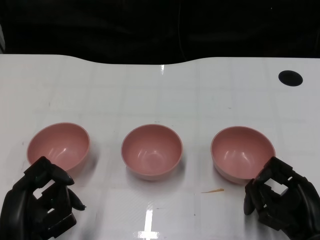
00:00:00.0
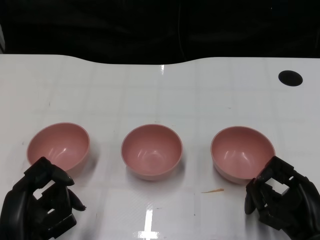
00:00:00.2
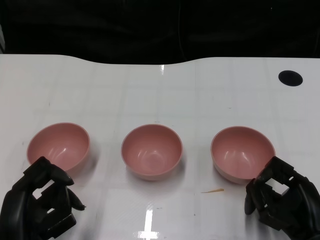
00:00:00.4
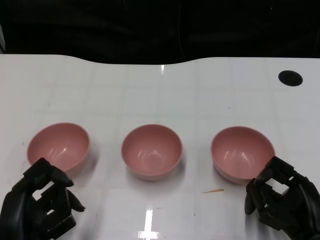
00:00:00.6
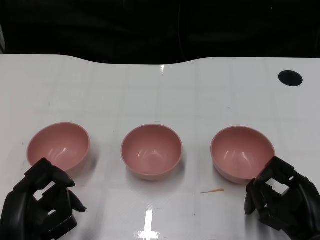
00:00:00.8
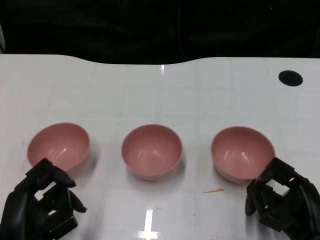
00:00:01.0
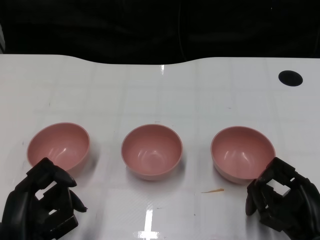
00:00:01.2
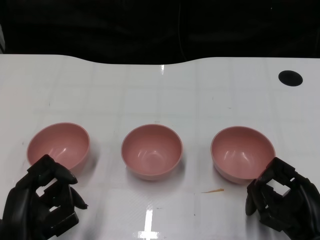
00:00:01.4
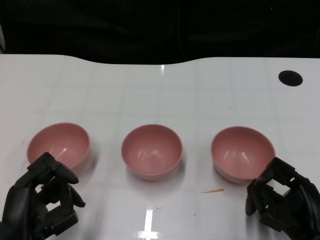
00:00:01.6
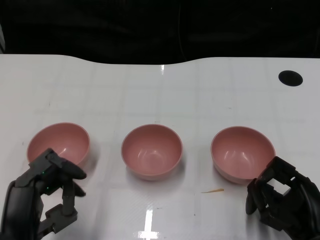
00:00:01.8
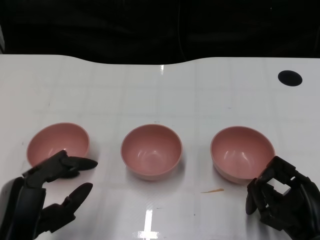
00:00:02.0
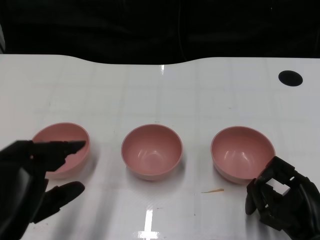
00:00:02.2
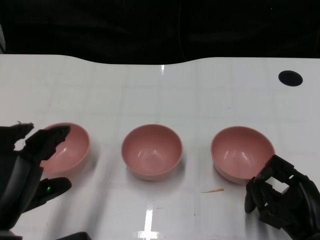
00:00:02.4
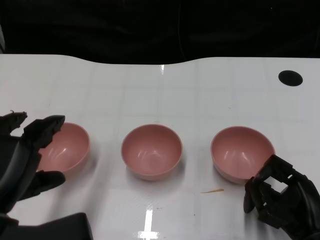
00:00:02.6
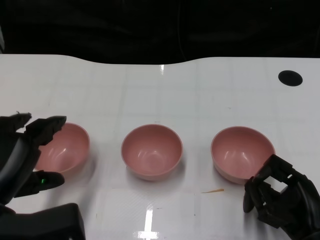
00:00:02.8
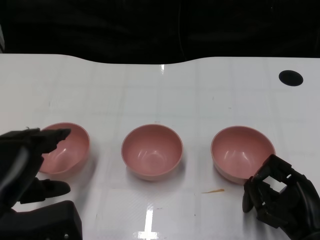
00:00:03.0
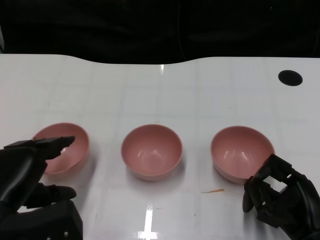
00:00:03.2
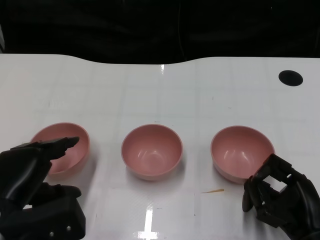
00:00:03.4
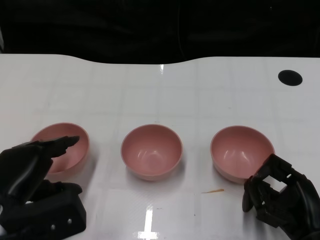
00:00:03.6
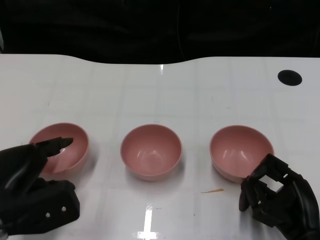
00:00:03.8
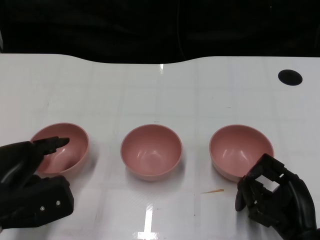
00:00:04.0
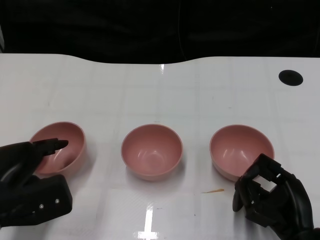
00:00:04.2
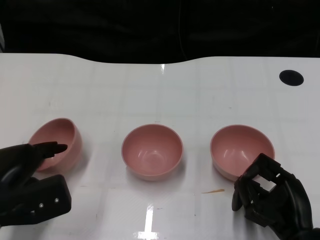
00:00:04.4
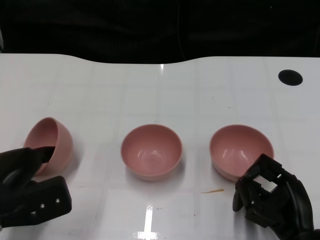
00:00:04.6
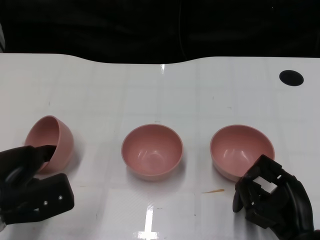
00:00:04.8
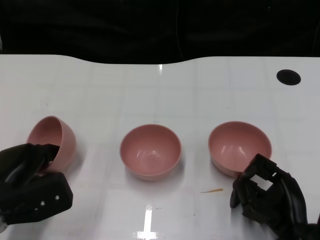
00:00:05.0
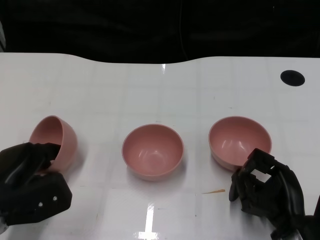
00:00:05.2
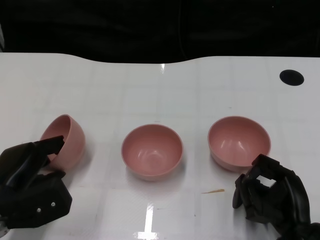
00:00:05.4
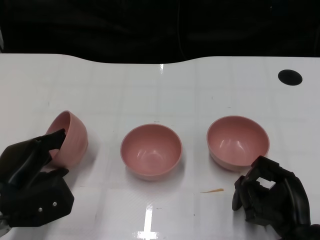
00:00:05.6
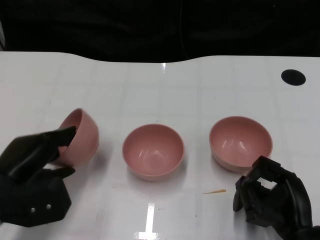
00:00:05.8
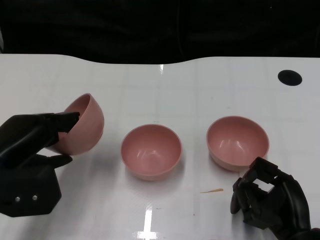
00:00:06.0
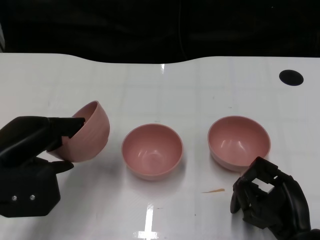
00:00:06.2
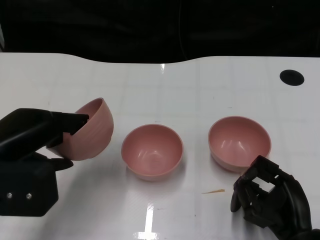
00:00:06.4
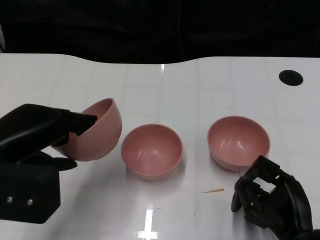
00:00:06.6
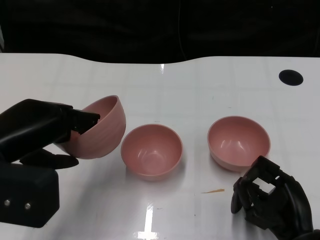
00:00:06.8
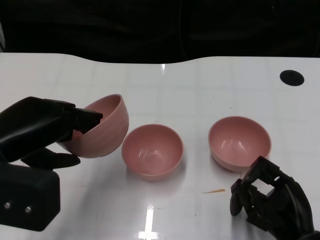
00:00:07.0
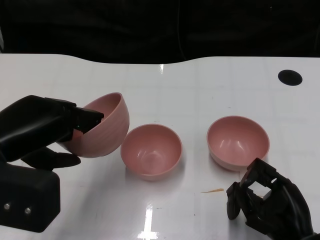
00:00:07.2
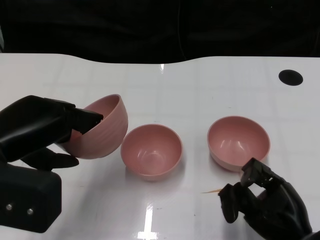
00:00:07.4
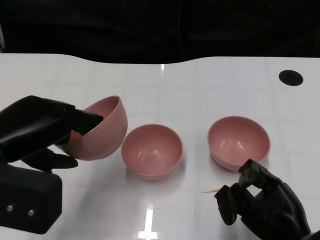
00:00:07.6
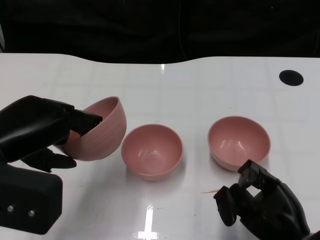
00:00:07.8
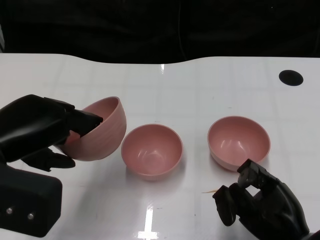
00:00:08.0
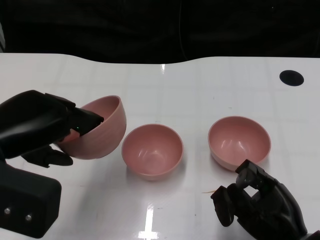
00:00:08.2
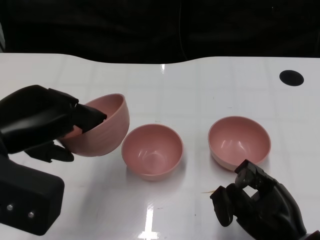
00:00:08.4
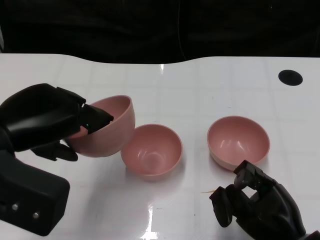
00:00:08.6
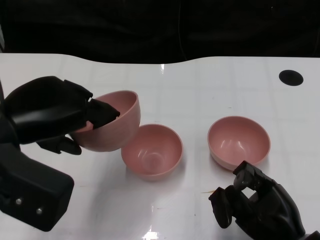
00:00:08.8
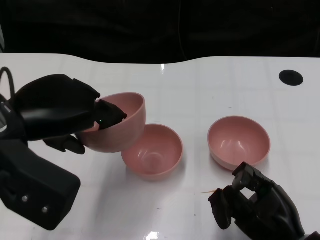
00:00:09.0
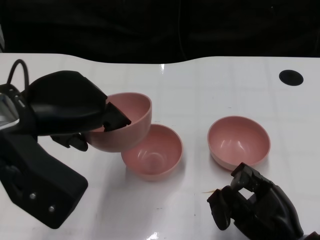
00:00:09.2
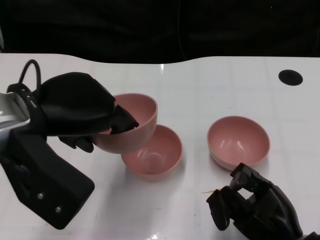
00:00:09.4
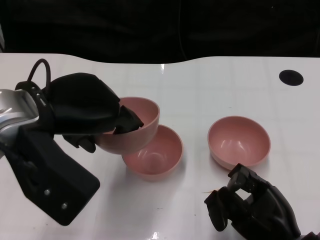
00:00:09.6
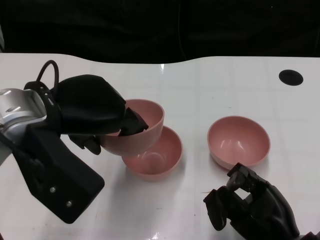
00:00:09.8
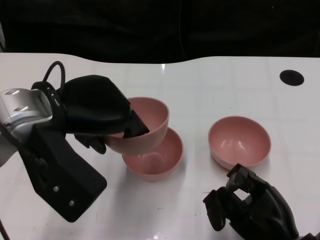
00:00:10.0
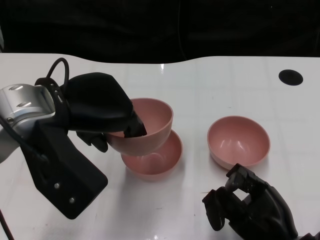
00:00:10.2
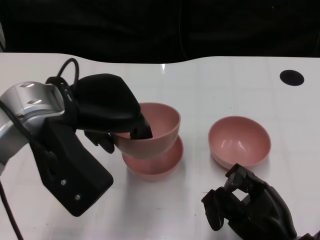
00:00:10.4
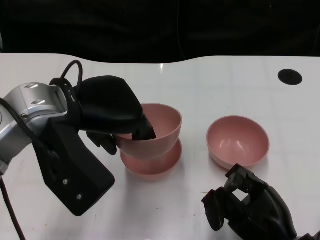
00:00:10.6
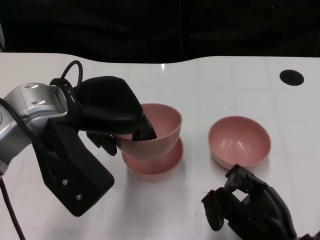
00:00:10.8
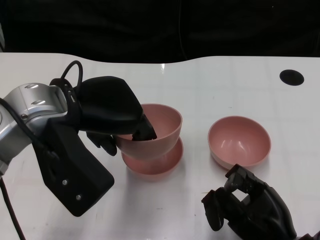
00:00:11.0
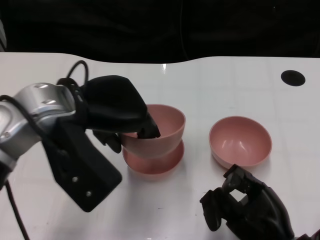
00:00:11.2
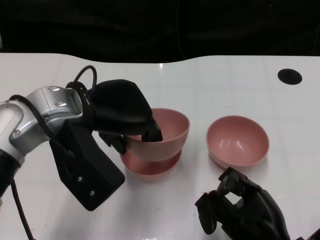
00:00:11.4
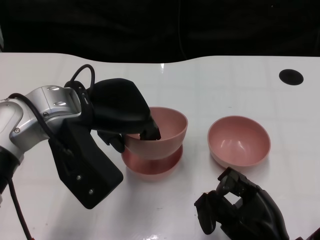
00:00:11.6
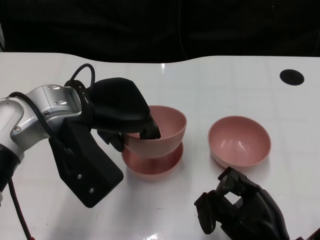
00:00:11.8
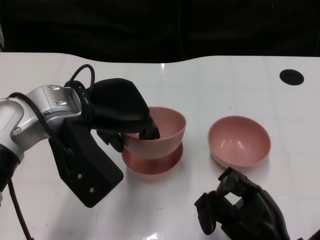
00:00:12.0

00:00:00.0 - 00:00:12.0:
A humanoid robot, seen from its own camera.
Task of the whole recording: Pick up the bowl on one side of the table and place it on top of the middle bowl, then pick up the bowl on the other side of the table and place it on top of the middle bowls.
Step, 00:00:01.6 - 00:00:05.4: Grasp the bowl on the left with the left gripper.
00:00:01.6 - 00:00:03.0: The left hand shifts by about 5 cm.
00:00:03.0 - 00:00:04.4: The left hand ends up some 5 cm from where it was.
00:00:04.4 - 00:00:06.0: The left hand heads upward, covering approximately 5 cm.
00:00:06.0 - 00:00:07.6: The left hand goes approximately 5 cm upward.
00:00:07.6 - 00:00:09.0: The hands move only a little.
00:00:09.0 - 00:00:10.4: The left hand travels to the right by some 5 cm.
00:00:10.4 - 00:00:12.0: The hands stay close to where they were, moving slightly.

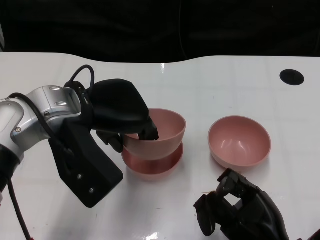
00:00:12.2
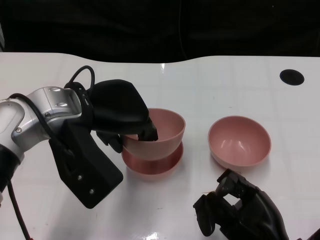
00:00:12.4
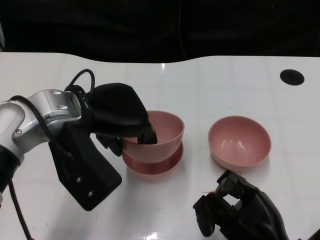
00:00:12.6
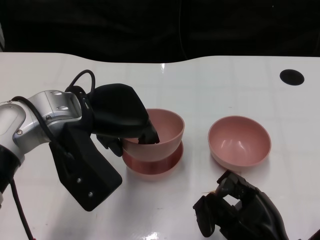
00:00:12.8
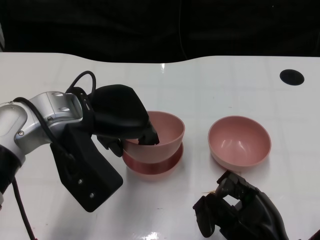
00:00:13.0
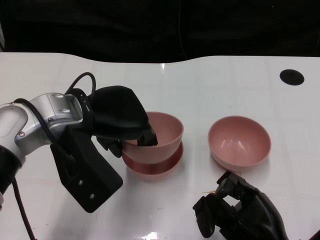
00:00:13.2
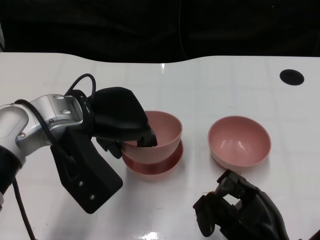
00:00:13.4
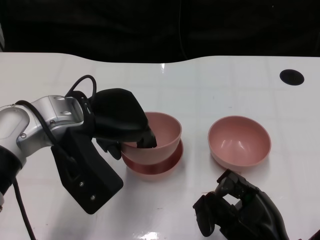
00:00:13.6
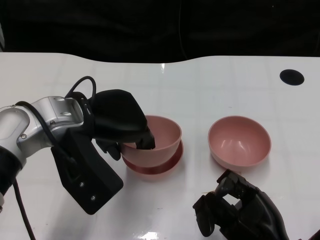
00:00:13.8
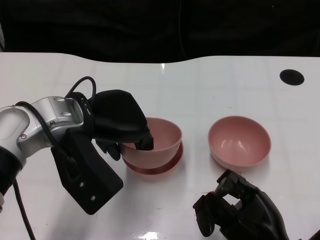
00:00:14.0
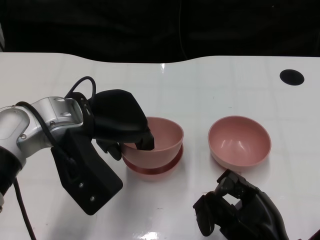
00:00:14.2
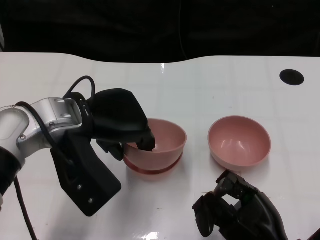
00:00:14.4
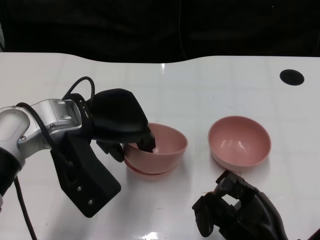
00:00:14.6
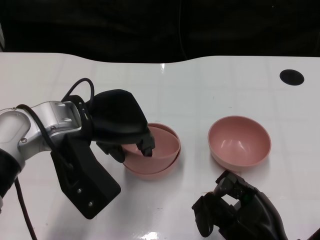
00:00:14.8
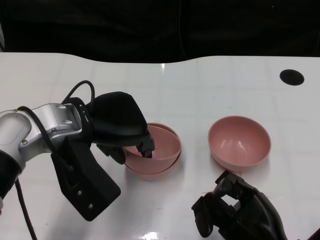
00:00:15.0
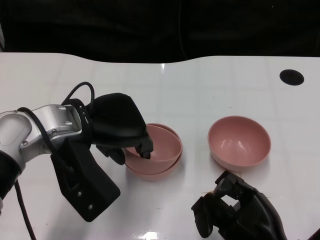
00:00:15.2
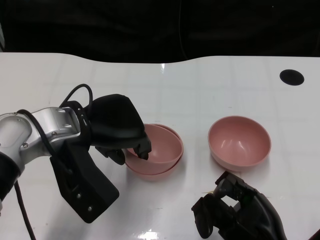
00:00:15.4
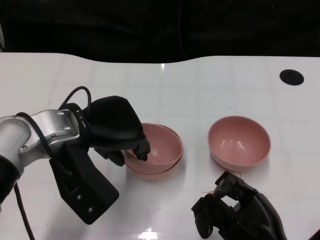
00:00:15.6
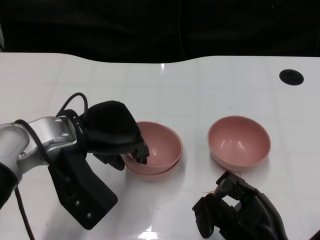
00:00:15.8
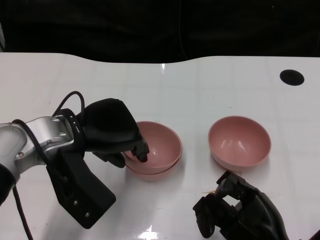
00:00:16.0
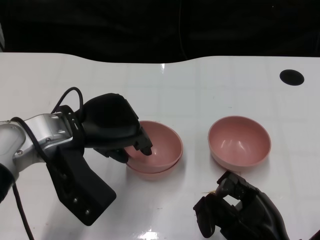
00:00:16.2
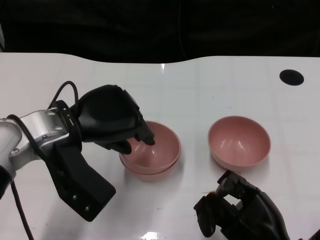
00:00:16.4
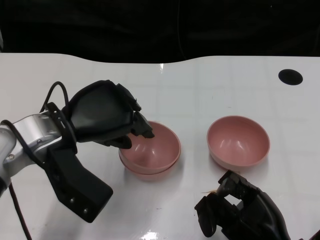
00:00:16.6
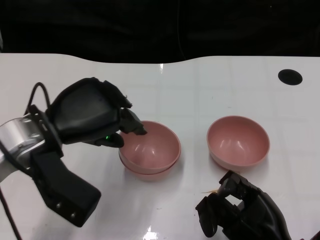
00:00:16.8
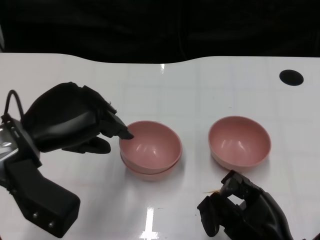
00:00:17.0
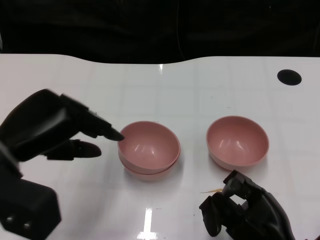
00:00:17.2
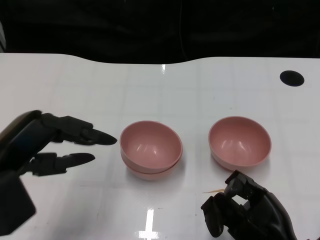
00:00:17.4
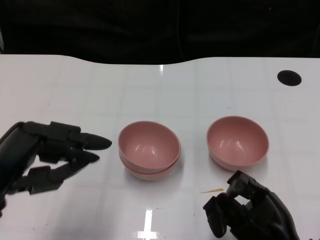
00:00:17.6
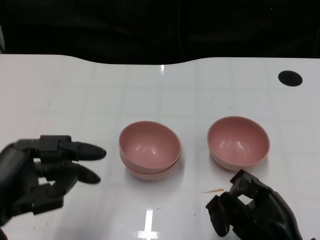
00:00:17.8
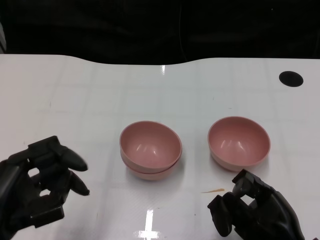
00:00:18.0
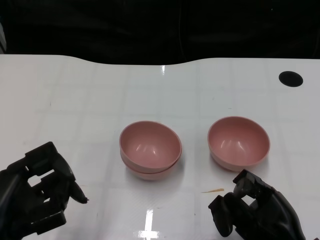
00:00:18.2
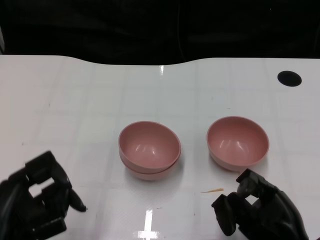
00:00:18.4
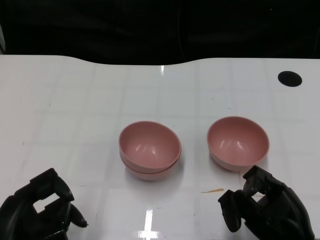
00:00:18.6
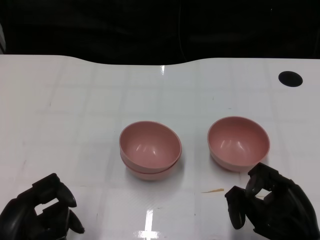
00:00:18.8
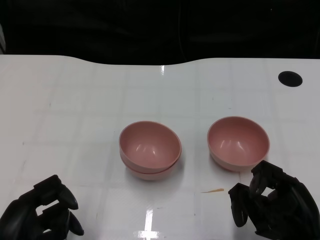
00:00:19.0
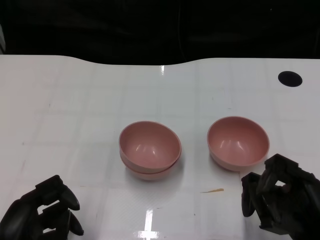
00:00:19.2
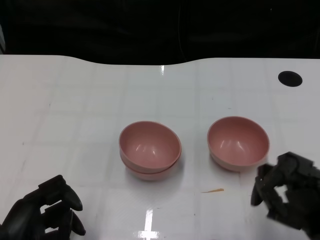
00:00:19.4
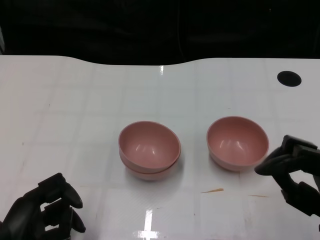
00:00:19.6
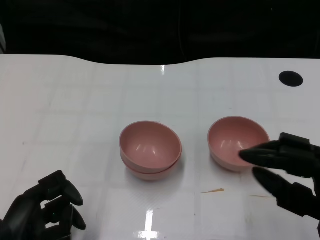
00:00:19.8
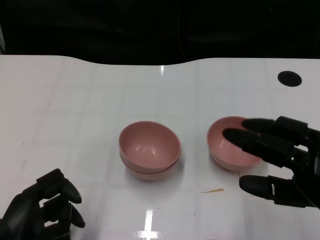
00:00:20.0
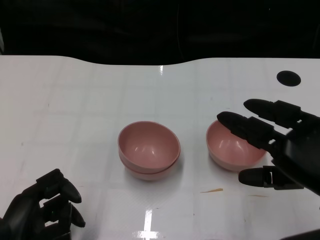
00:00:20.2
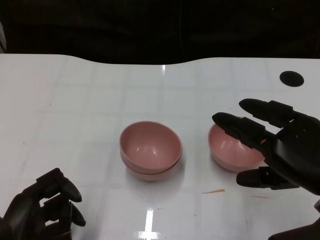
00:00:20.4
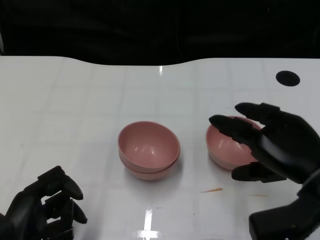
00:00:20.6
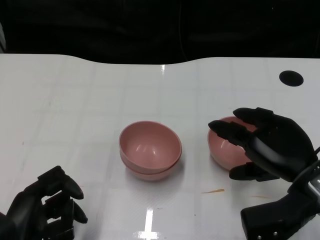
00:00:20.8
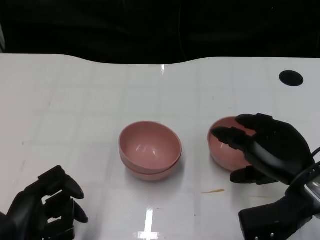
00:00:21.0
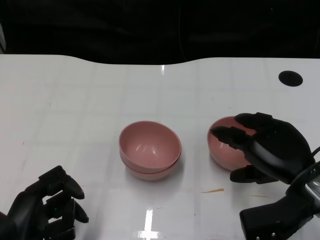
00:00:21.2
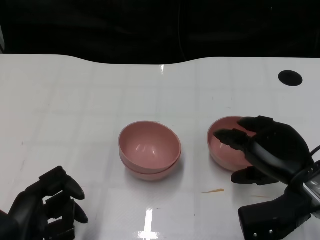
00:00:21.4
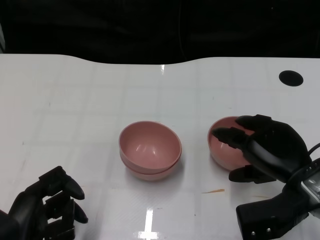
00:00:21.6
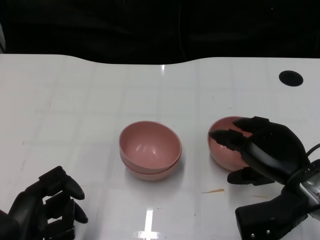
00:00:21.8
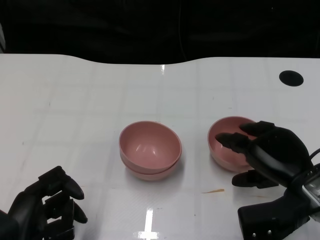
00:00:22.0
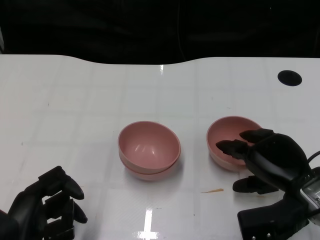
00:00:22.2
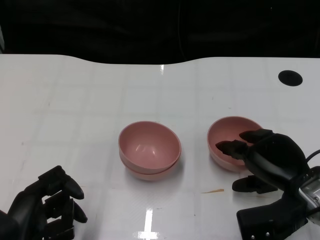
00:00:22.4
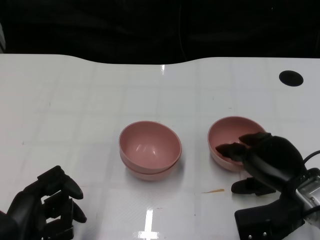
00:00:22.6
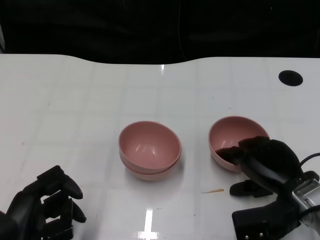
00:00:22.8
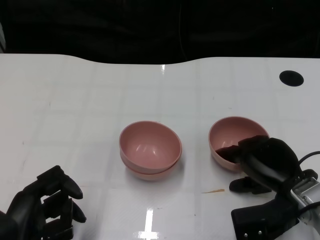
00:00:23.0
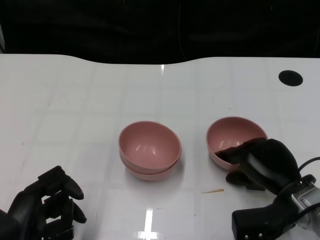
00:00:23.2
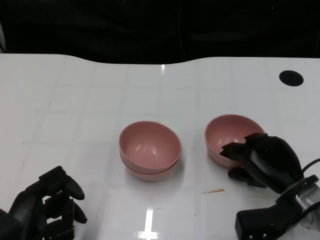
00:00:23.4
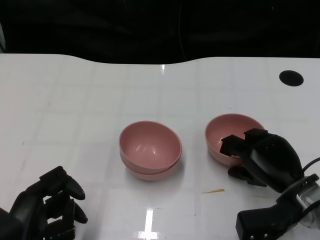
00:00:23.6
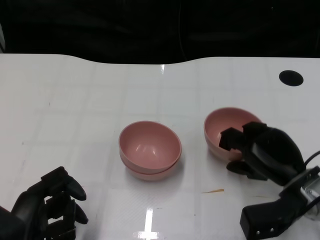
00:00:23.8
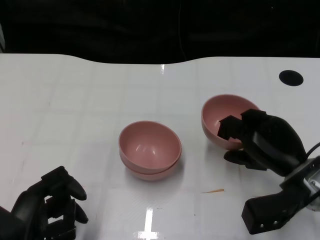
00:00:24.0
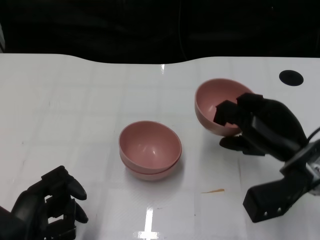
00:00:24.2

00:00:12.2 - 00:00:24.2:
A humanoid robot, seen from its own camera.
Task of the whole recording: Pick up the bowl on one side of the table and place it on top of the middle bowl, then pick up the bowl on the other side of the table and place it on top of the middle bowls.
Step, 00:00:12.2 - 00:00:16.4: Place the bowl on the left onto the bowl in the middle with left gripper.
Step, 00:00:16.6 - 00:00:24.0: Grasp the bowl on the right with the right gripper.
00:00:12.2 - 00:00:13.8: The hands make only small movements.
00:00:13.8 - 00:00:15.2: The two hands keep their place.
00:00:16.6 - 00:00:18.2: The left hand goes some 15 cm backward and to the left.
00:00:18.2 - 00:00:19.8: The right hand is displaced upward by about 5 cm. The left hand is displaced downward by approximately 5 cm.
00:00:19.8 - 00:00:21.2: The right hand shifts roughly 10 cm forward.
00:00:21.2 - 00:00:22.6: The hands stay close to where they were, moving slightly.
